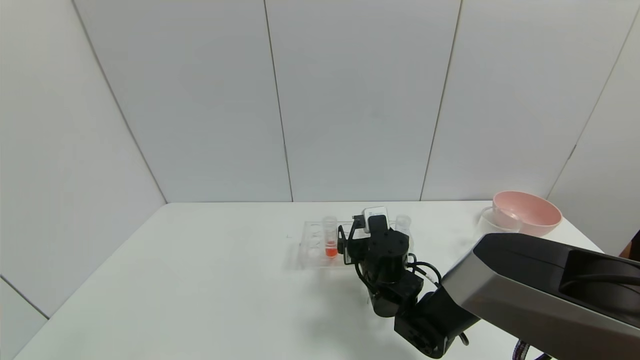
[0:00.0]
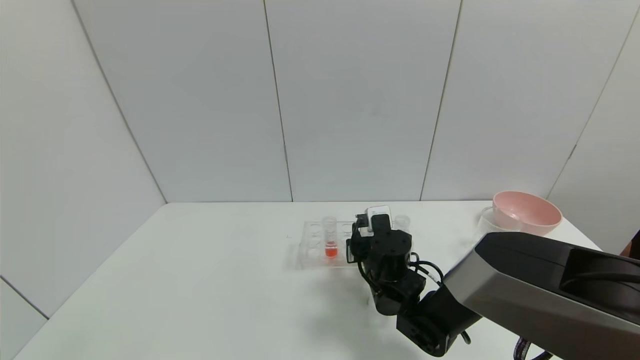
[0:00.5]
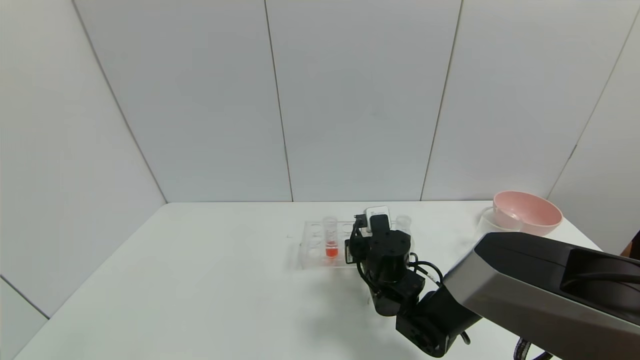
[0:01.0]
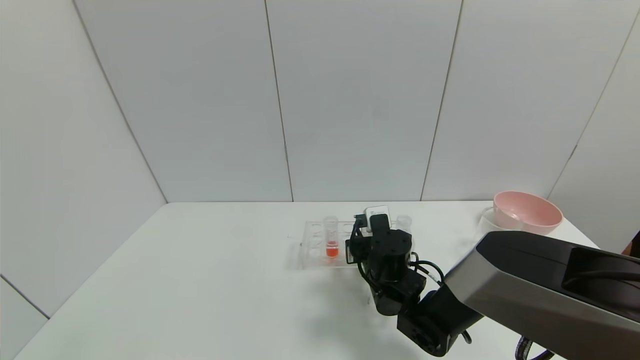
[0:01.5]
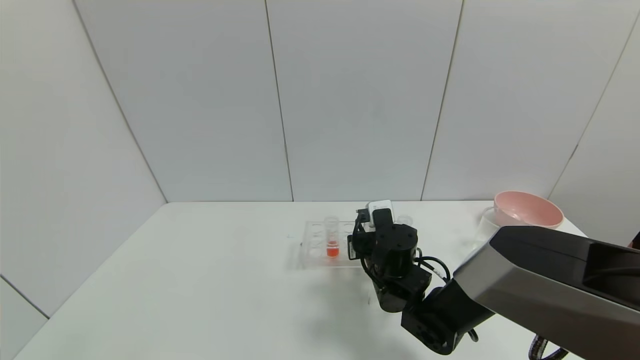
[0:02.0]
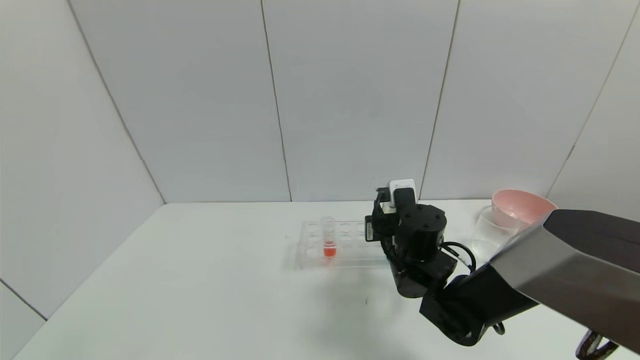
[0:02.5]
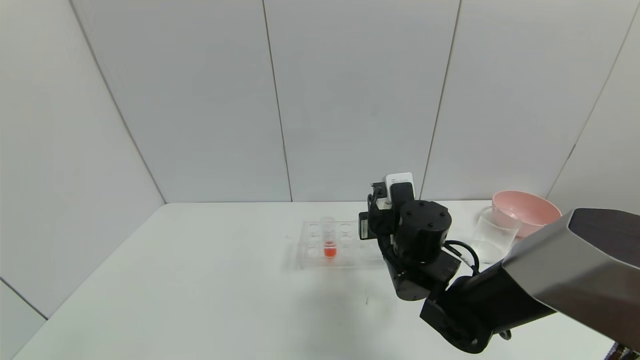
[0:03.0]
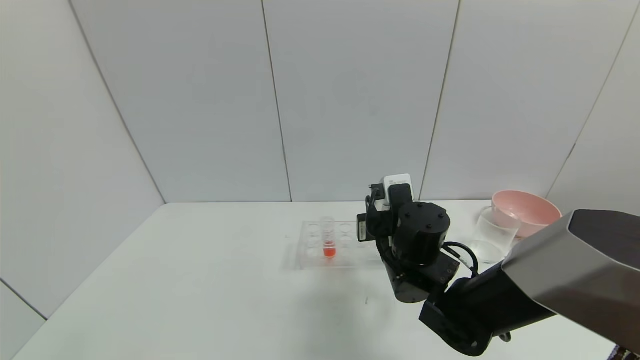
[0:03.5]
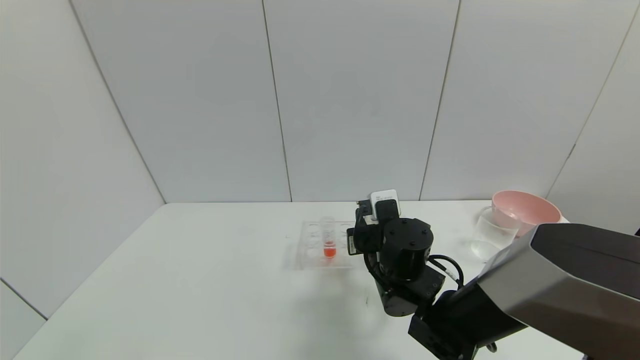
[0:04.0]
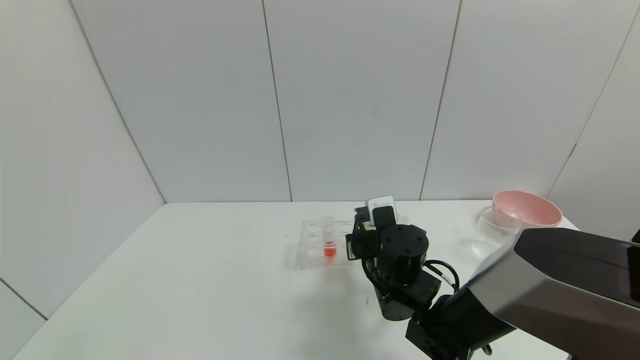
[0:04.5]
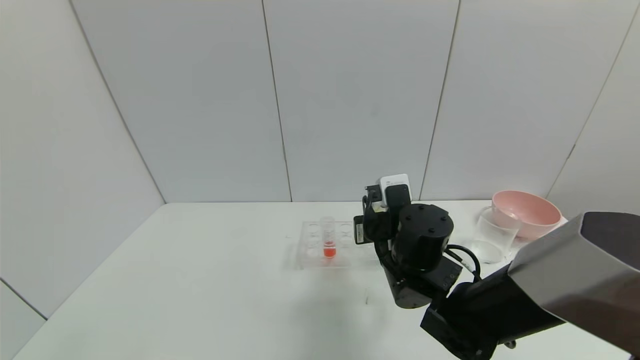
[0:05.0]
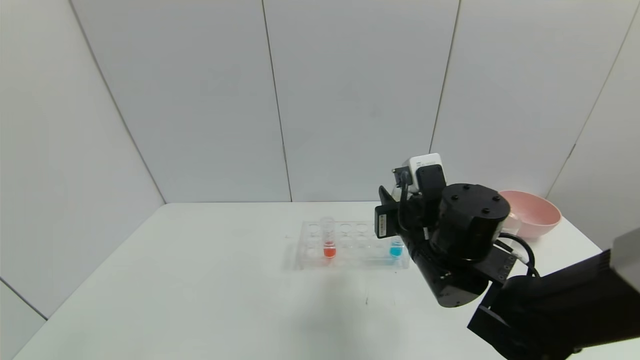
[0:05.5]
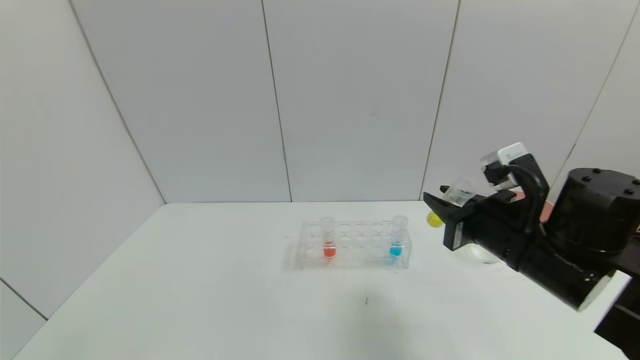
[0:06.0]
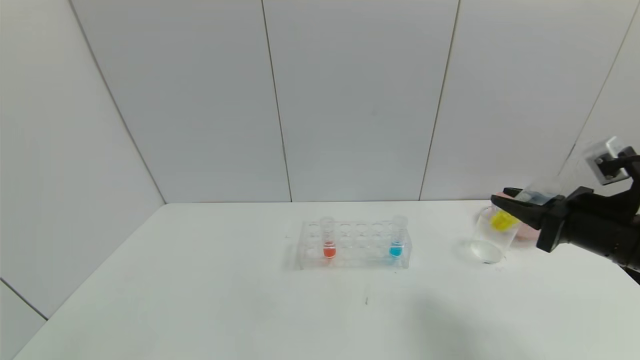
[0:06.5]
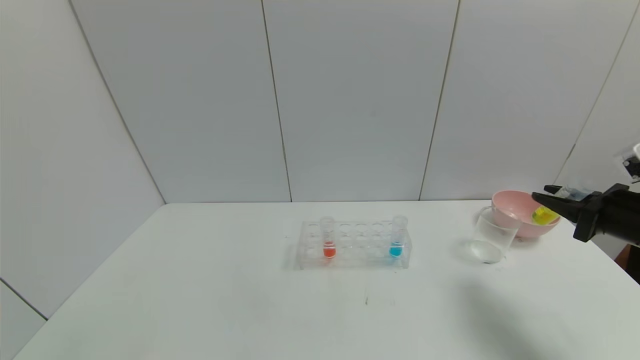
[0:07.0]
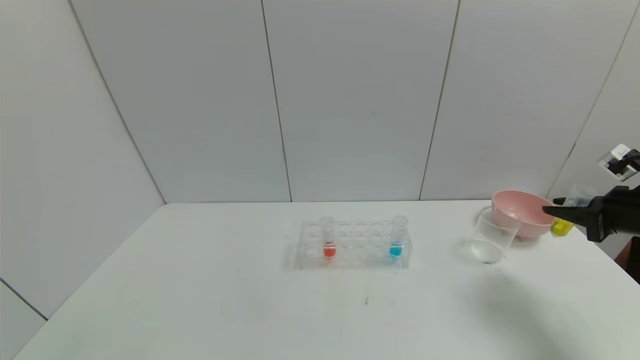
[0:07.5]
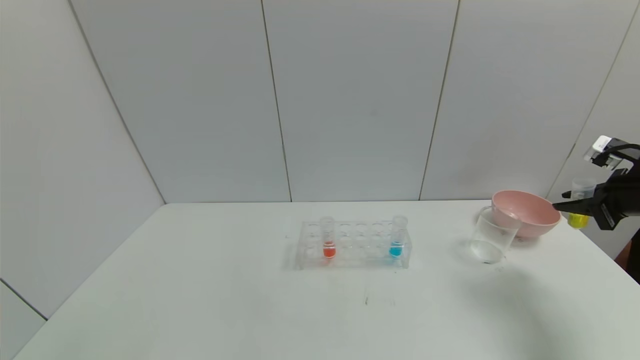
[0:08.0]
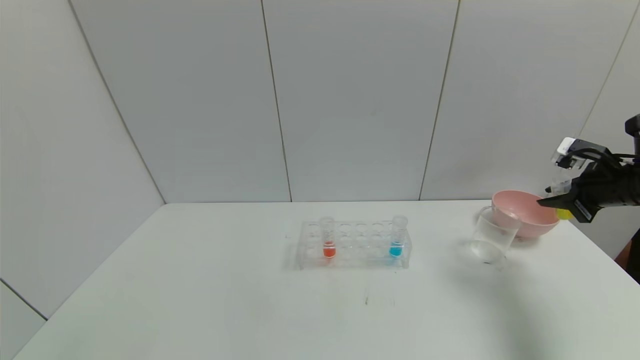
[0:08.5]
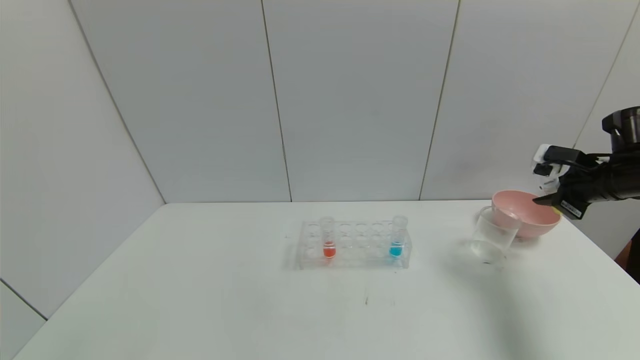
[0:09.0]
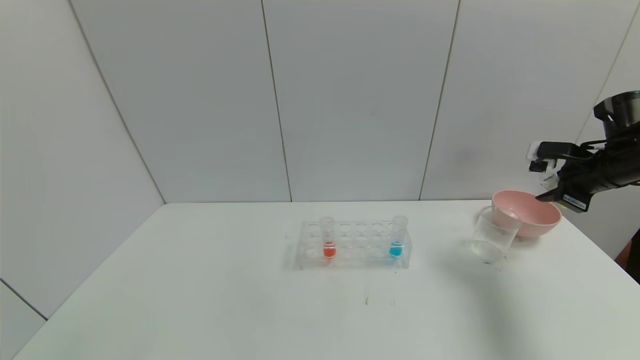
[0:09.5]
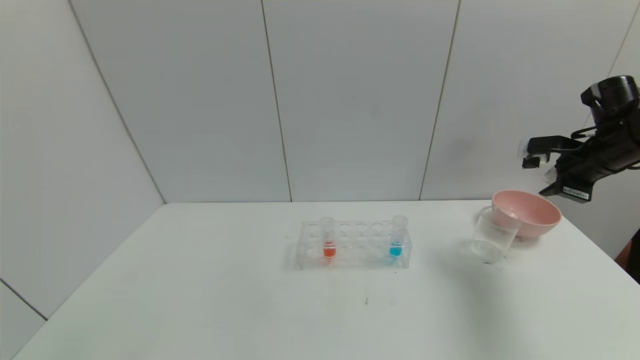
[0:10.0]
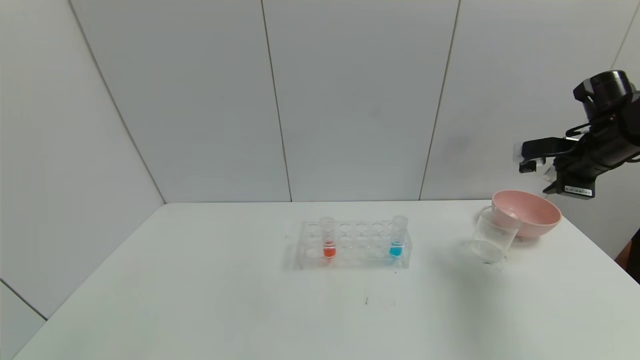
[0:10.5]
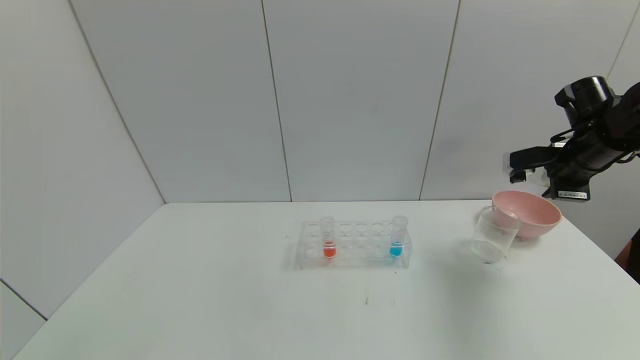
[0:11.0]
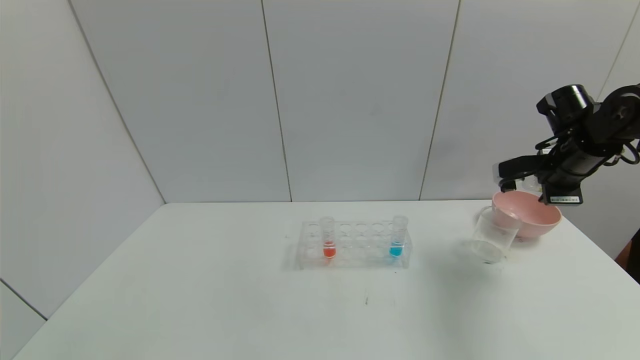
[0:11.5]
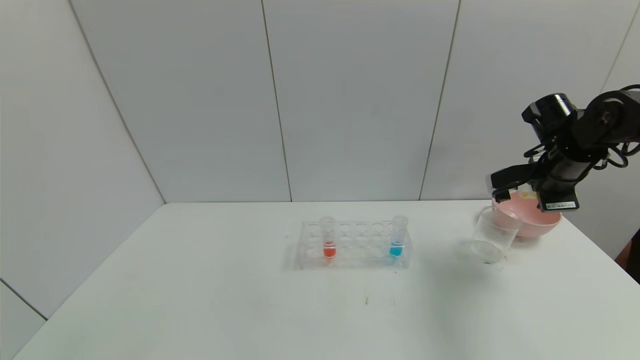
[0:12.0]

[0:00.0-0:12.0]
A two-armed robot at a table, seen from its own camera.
Task of the whole recording: pick up the test tube with yellow pigment and the test tube with blue pigment by grippers and pour them into the beaker.
Step, 0:00.0 to 0:07.0: Pick up the test tube containing the yellow reagent with right gripper.
0:00.0 to 0:02.0: The right gripper closes up.
0:04.0 to 0:06.0: The right gripper goes about 20 cm to the right, upward and backward.
0:06.0 to 0:08.0: The right gripper is displaced to the right by some 25 cm.
0:08.0 to 0:10.0: The right gripper is displaced forward and to the left by approximately 10 cm.
0:10.0 to 0:12.0: The right gripper shifts about 5 cm to the left.

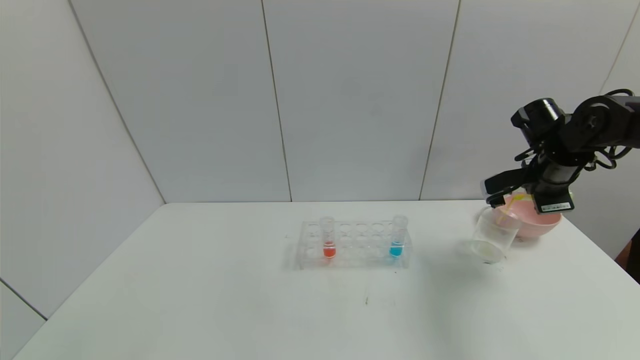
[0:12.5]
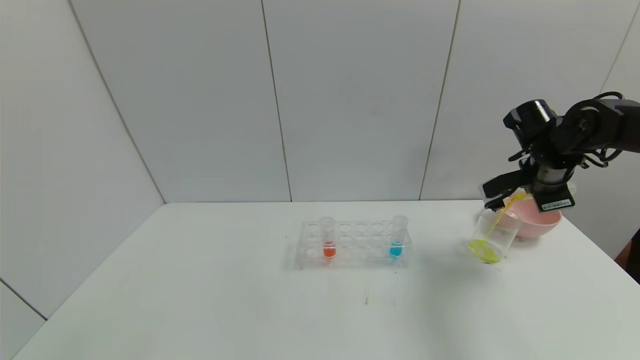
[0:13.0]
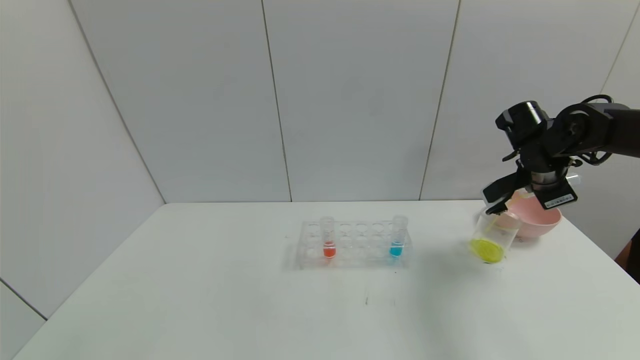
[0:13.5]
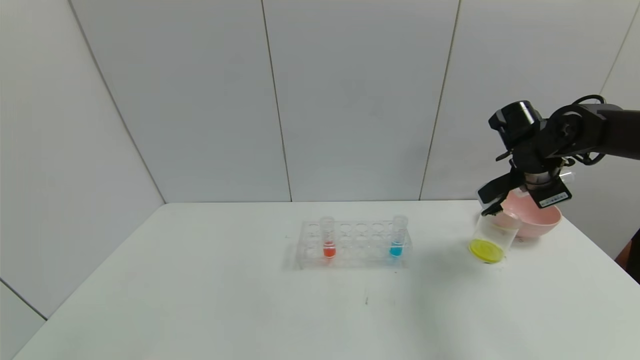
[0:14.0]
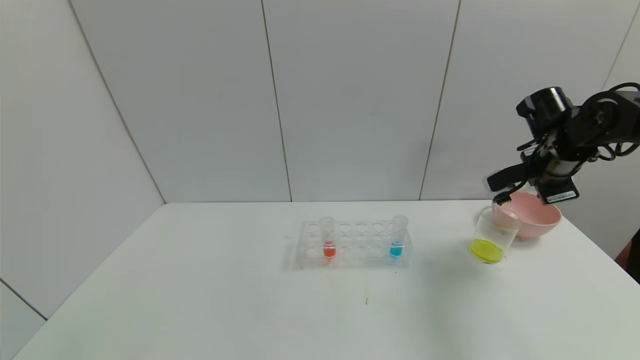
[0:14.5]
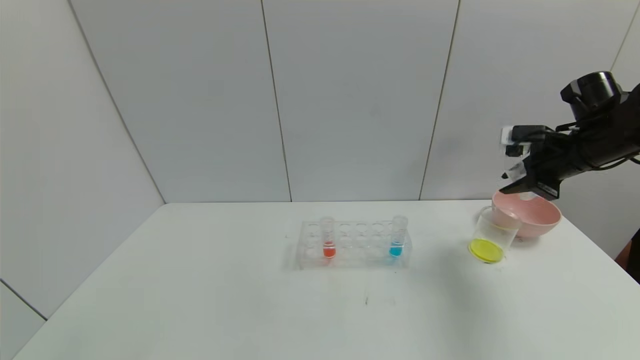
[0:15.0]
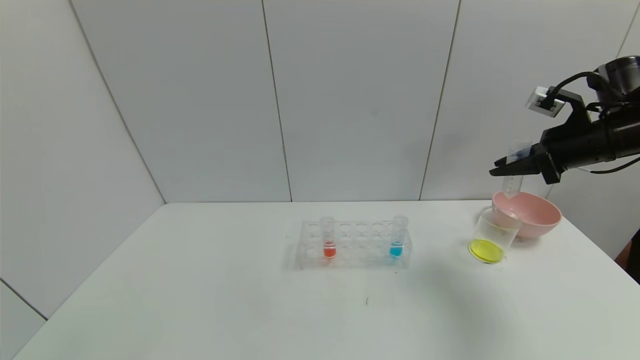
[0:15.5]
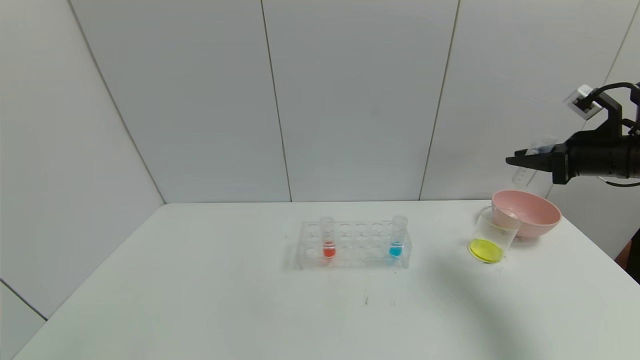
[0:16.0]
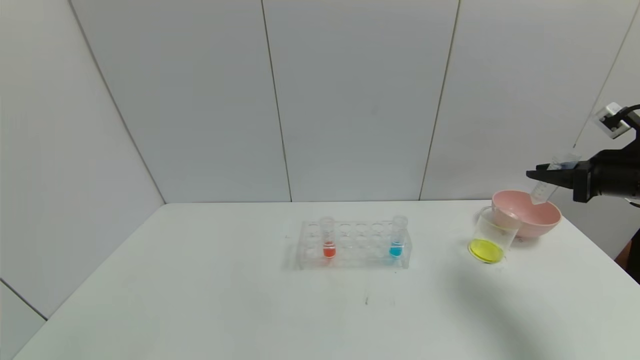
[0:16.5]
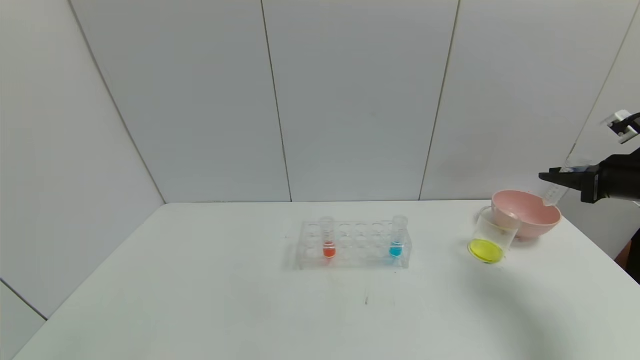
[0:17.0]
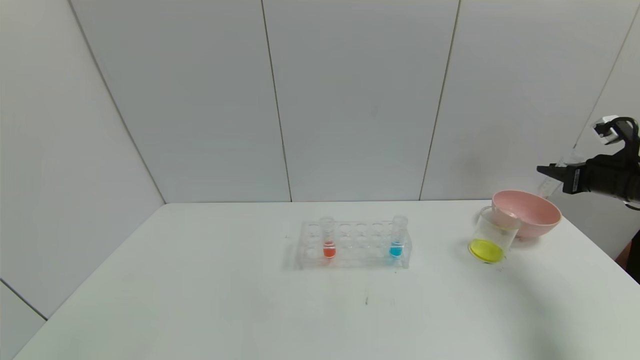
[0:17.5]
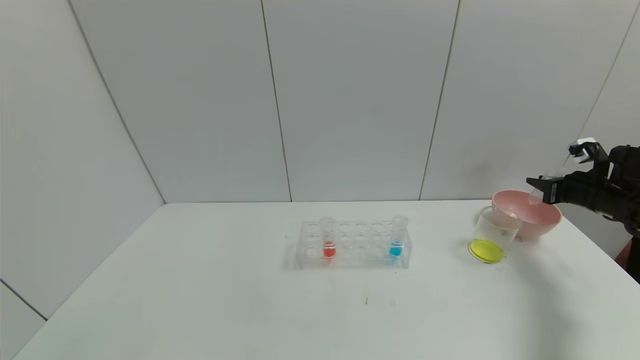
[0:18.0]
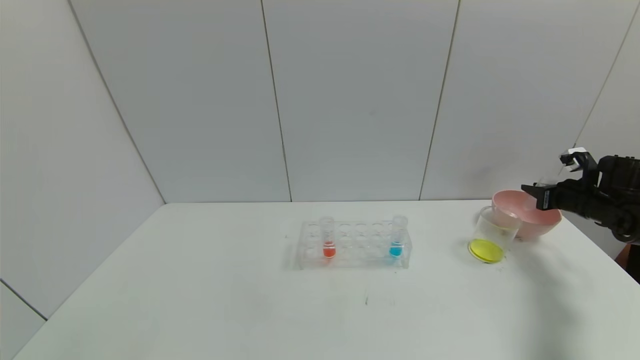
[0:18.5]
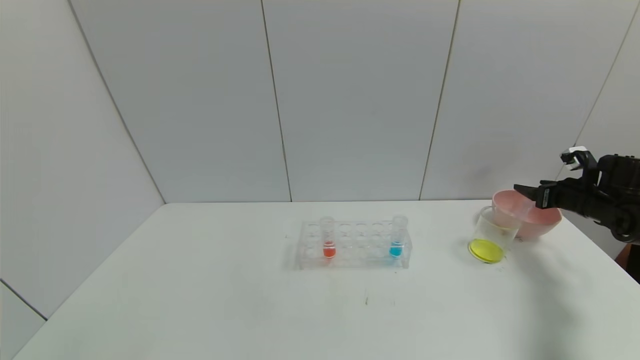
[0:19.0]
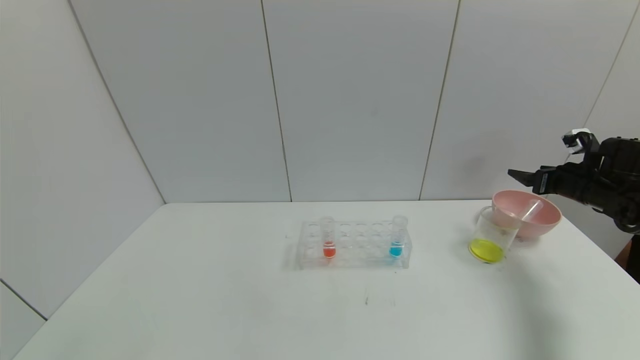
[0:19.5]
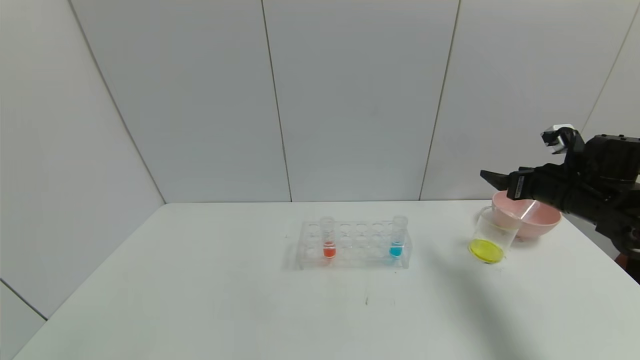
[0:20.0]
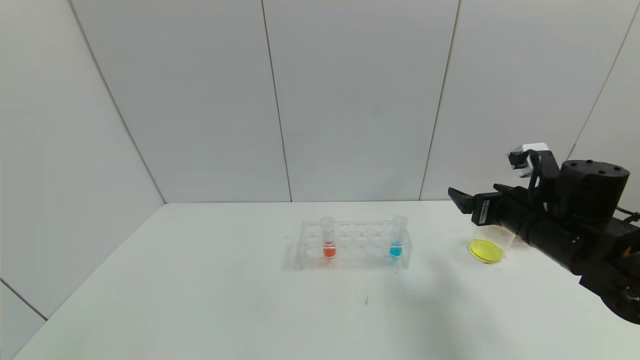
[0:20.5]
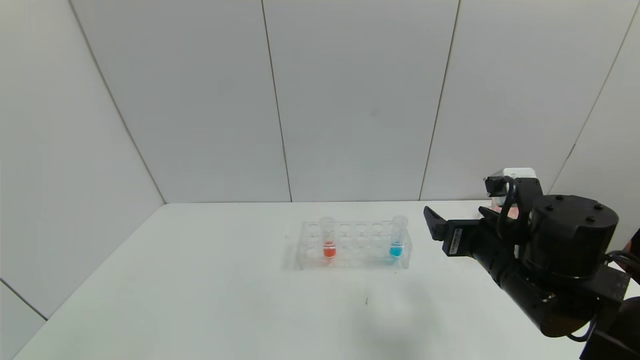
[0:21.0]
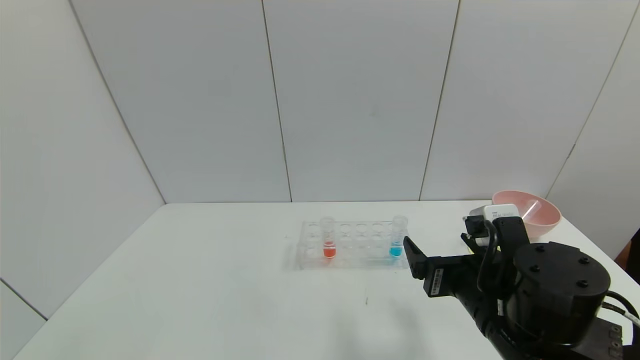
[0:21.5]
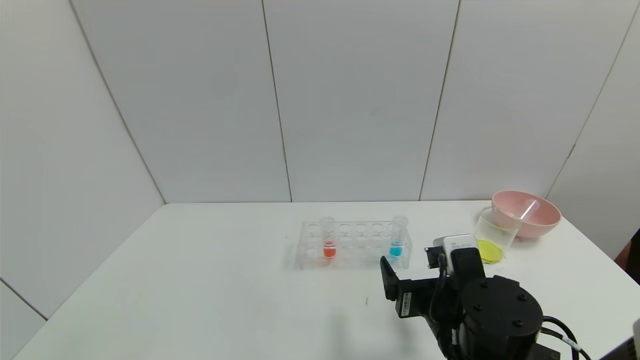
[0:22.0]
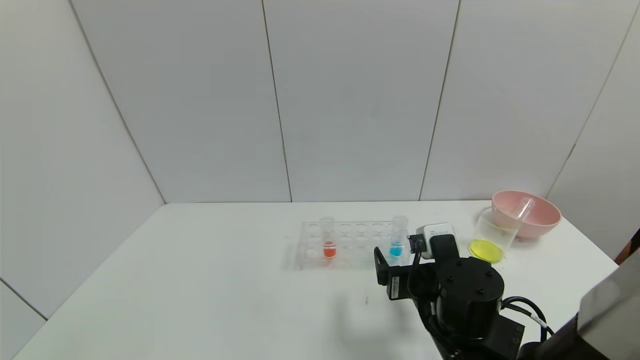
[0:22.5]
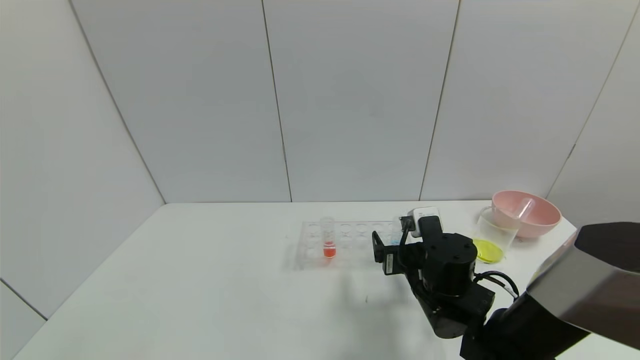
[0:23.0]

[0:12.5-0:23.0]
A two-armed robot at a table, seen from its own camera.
Task of the whole recording: pick up the test tube with yellow pigment and the test tube with blue pigment by grippers and pour them into the beaker.
Step, 0:12.5 to 0:16.5: Pour the yellow reagent into the graduated cylinder with right gripper.
Step, 0:17.0 to 0:20.0: Place the test tube into the bowl with right gripper.
0:12.5 to 0:14.5: The grippers make only small movements.
0:14.5 to 0:16.5: The right gripper moves backward and to the right, approximately 10 cm.
0:16.5 to 0:19.0: The right gripper goes about 15 cm downward, forward and to the right, and opens up.
0:19.0 to 0:21.0: The right gripper heads to the left and backward, covering some 35 cm.
0:21.0 to 0:23.0: The right gripper travels downward, to the left and forward by about 10 cm.
